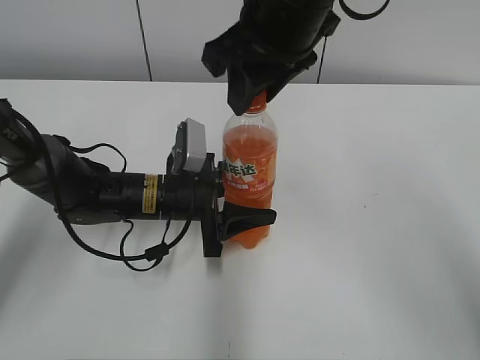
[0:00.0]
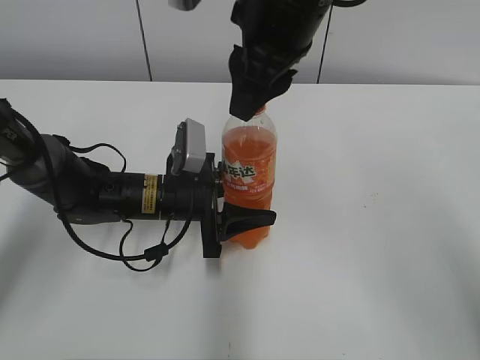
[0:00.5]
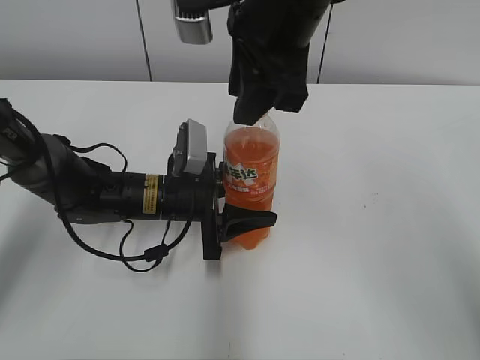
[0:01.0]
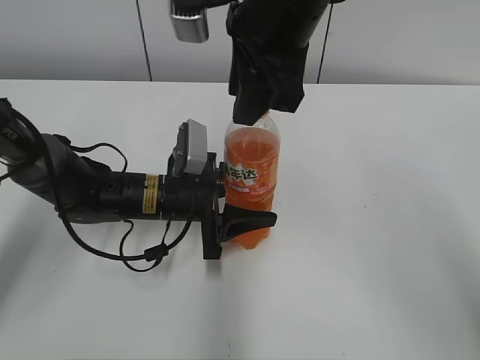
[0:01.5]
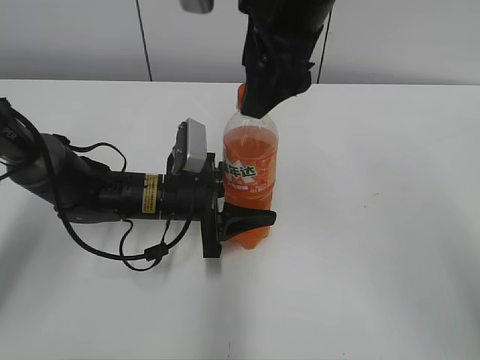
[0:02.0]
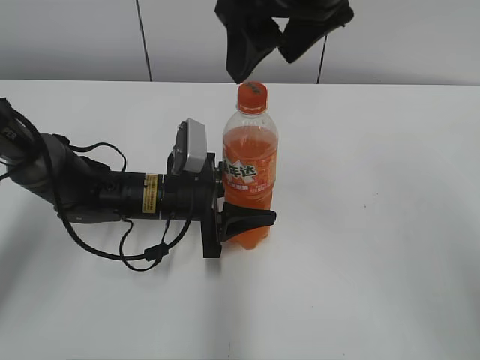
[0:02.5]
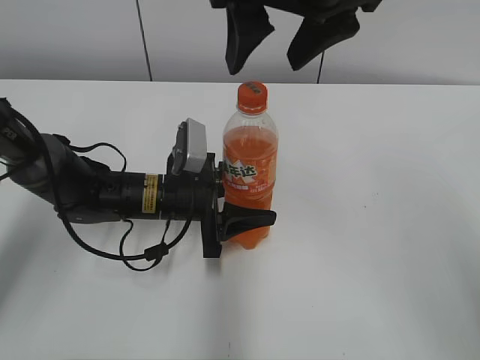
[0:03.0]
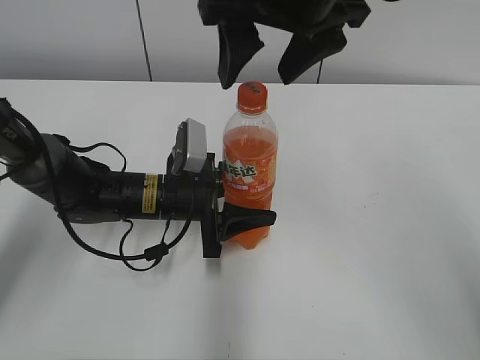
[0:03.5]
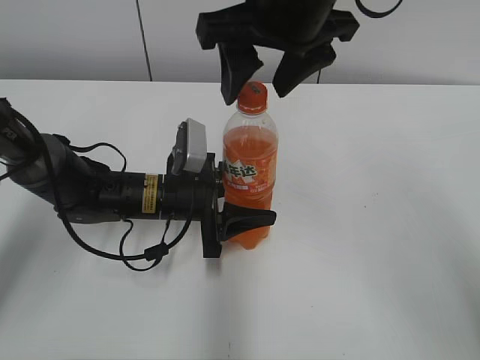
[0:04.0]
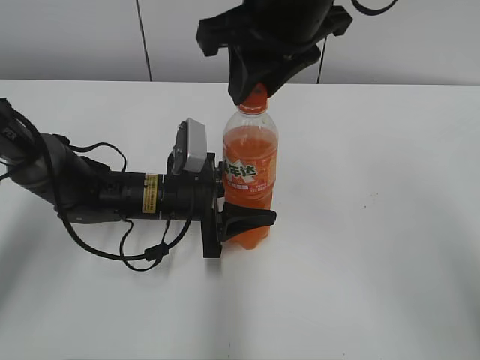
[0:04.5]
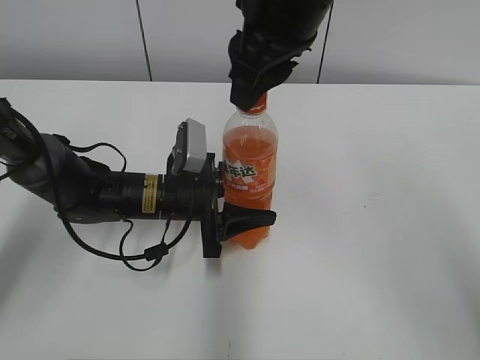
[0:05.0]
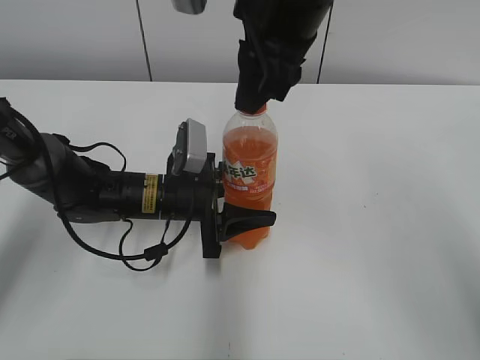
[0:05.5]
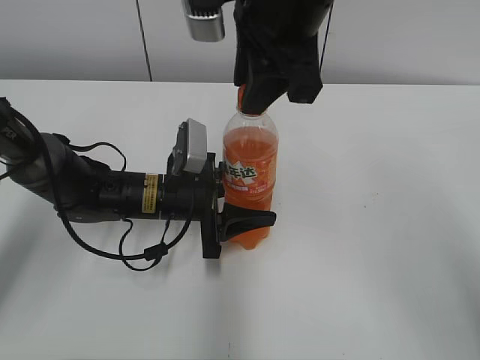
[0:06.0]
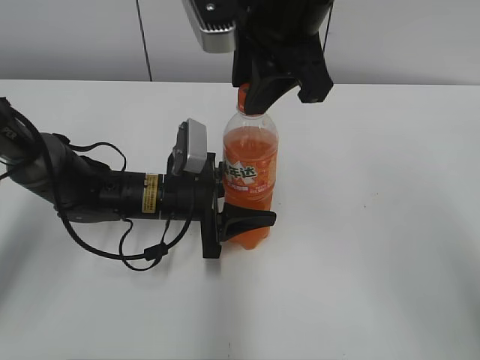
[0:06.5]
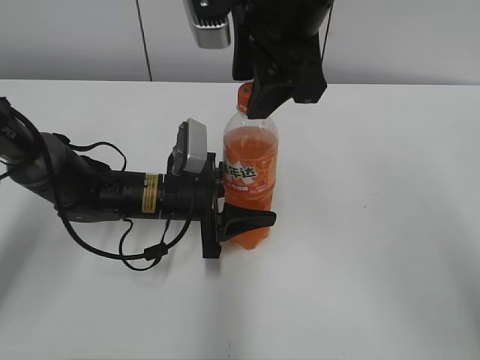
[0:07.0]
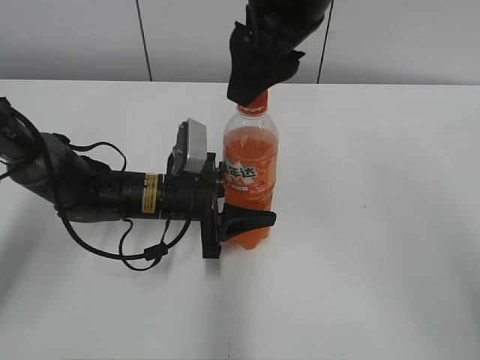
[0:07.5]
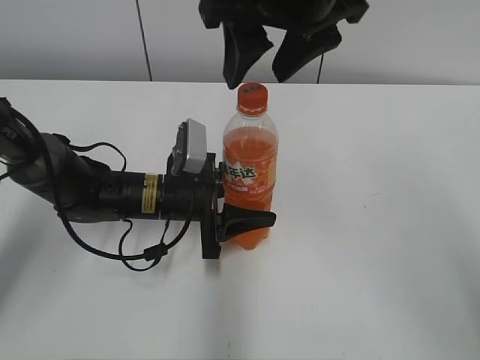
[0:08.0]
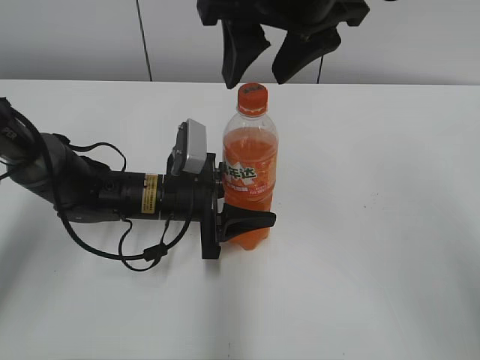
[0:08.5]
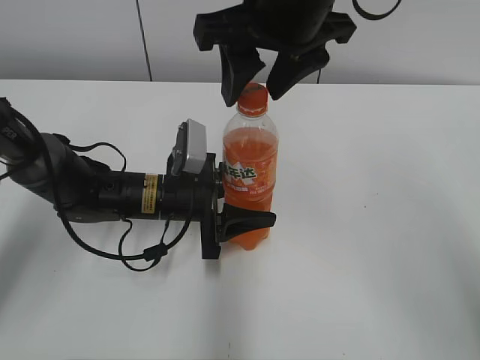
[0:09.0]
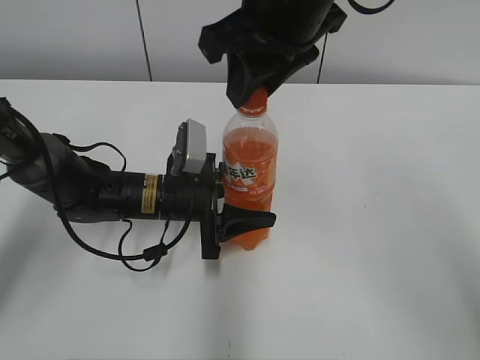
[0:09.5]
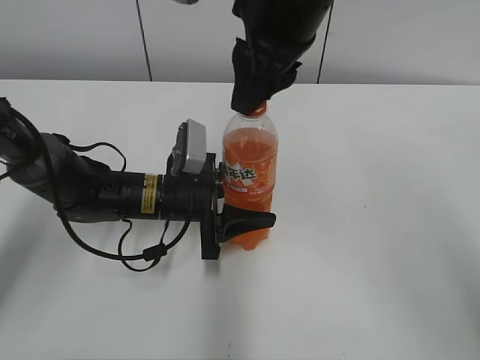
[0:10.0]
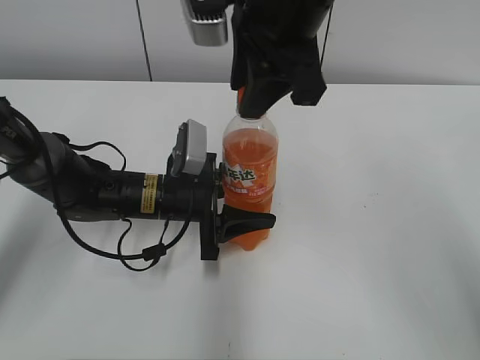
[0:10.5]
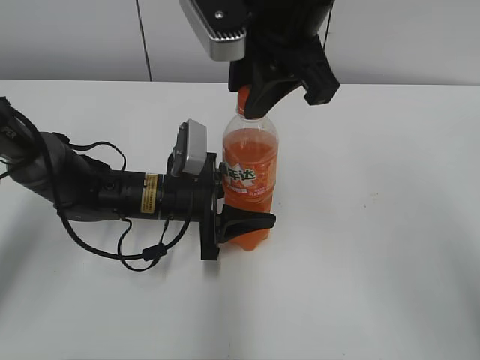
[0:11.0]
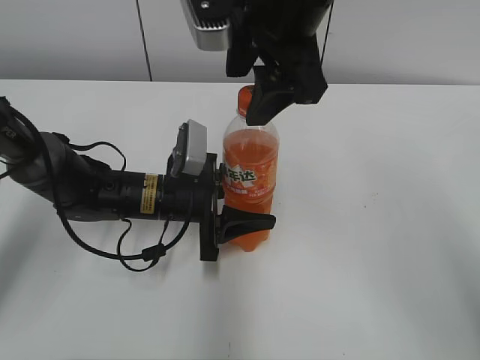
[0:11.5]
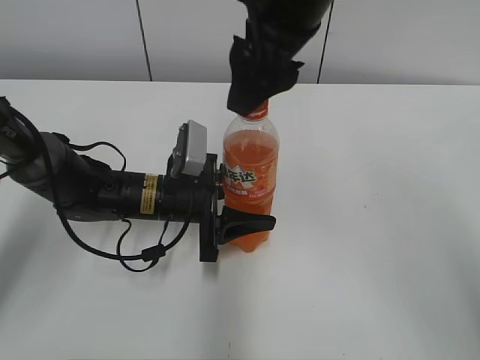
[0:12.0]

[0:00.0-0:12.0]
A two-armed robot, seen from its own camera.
0:00.0 to 0:02.0: The right gripper opens its fingers.
0:04.0 to 0:06.0: The right gripper closes its fingers.
0:06.0 to 0:08.0: The right gripper opens up.
0:08.0 to 0:10.0: The right gripper closes its fingers.
0:10.0 to 0:12.0: The right gripper opens its fingers.

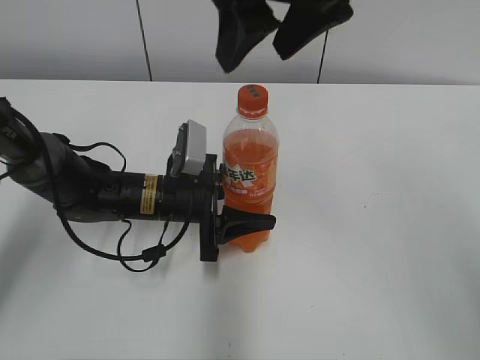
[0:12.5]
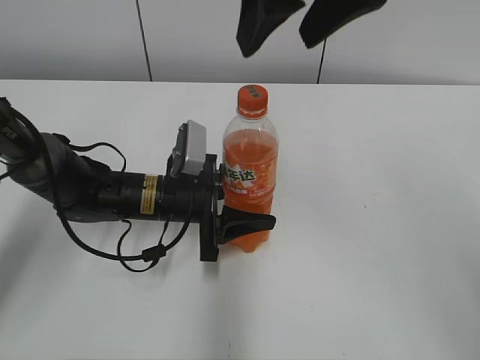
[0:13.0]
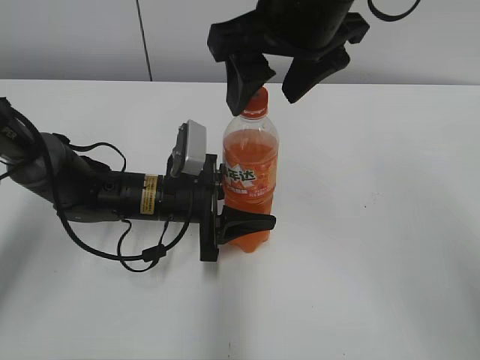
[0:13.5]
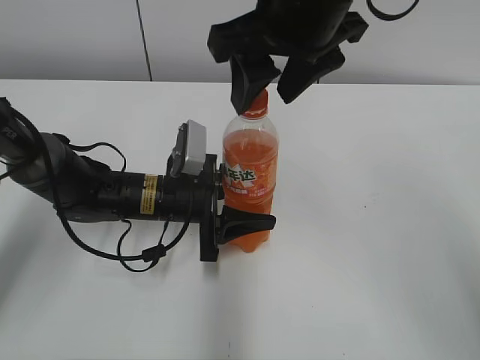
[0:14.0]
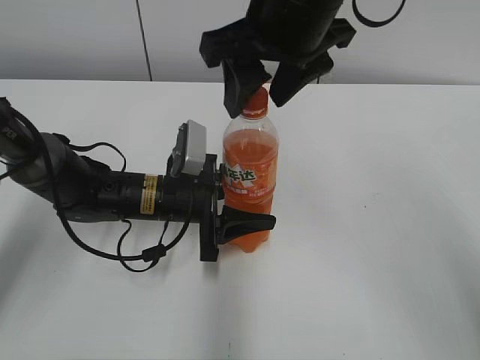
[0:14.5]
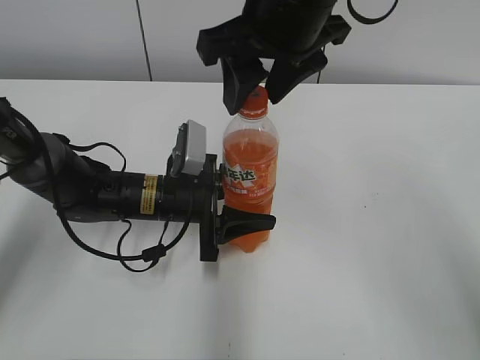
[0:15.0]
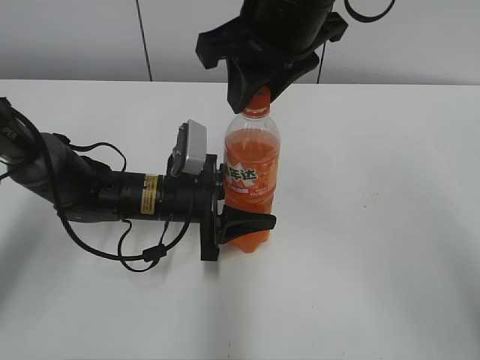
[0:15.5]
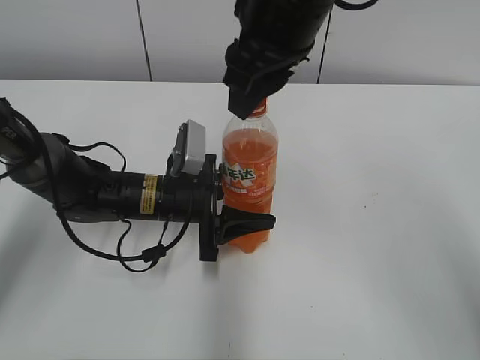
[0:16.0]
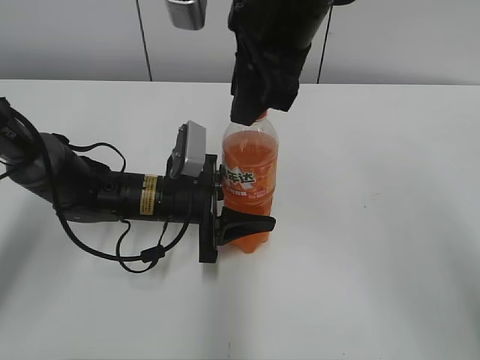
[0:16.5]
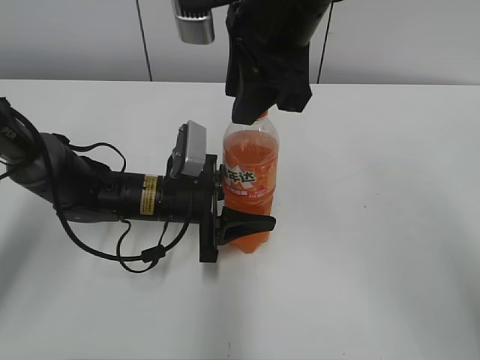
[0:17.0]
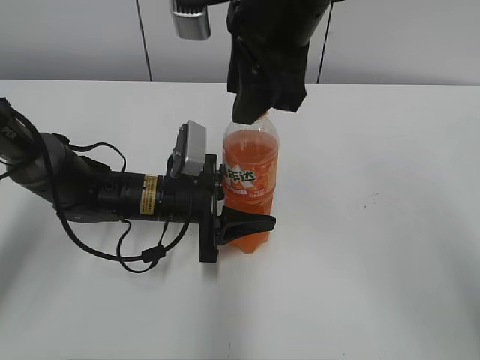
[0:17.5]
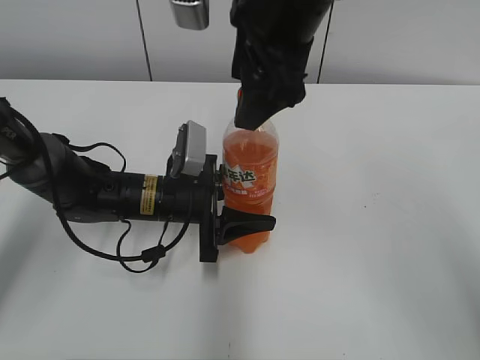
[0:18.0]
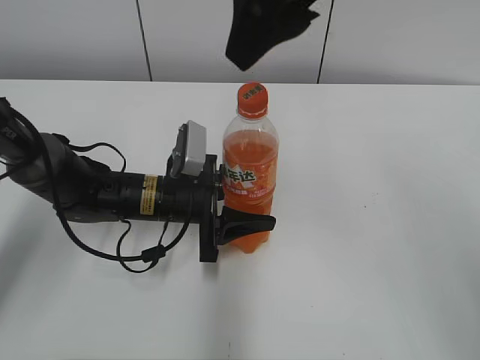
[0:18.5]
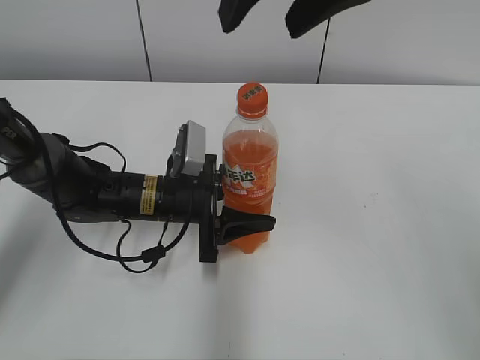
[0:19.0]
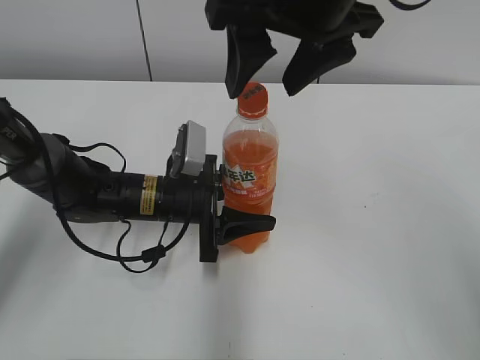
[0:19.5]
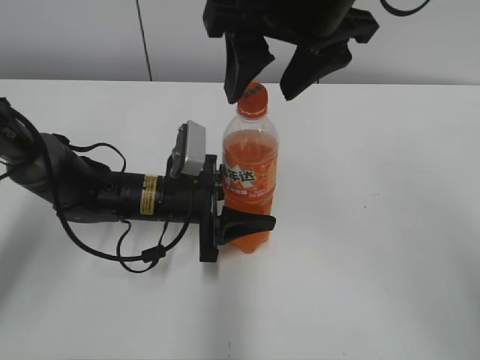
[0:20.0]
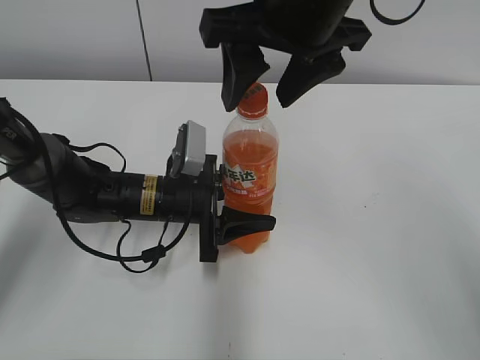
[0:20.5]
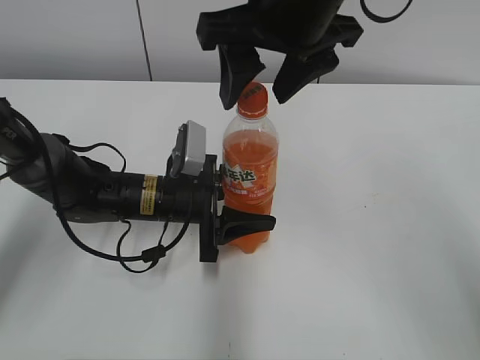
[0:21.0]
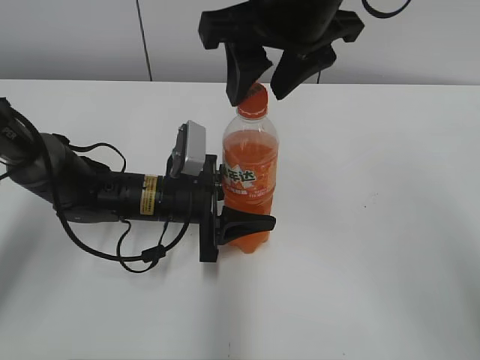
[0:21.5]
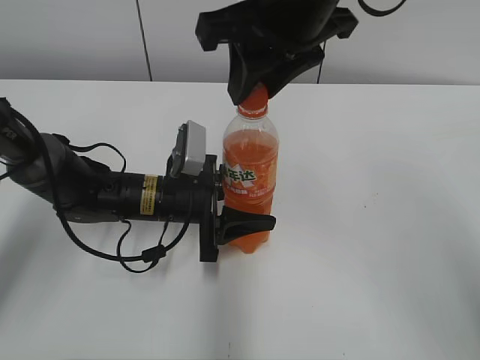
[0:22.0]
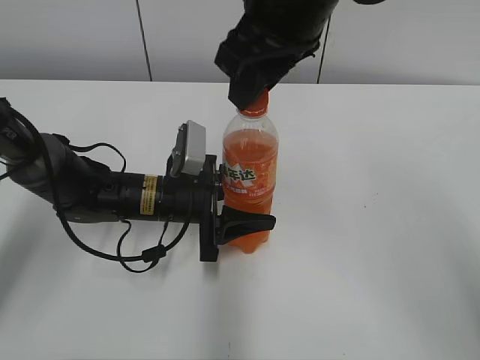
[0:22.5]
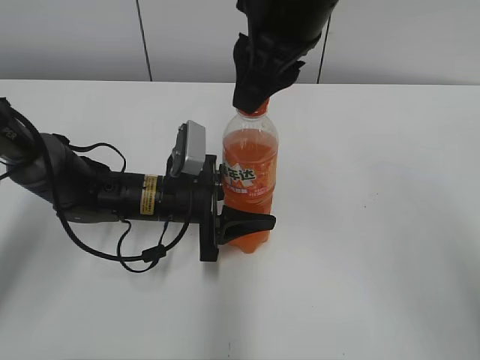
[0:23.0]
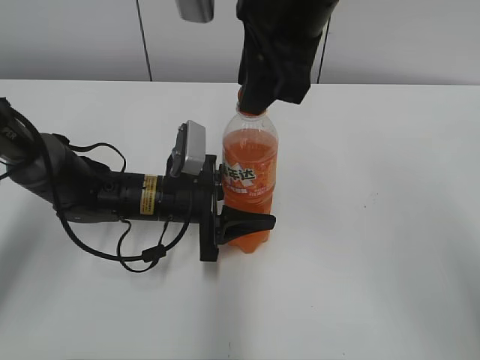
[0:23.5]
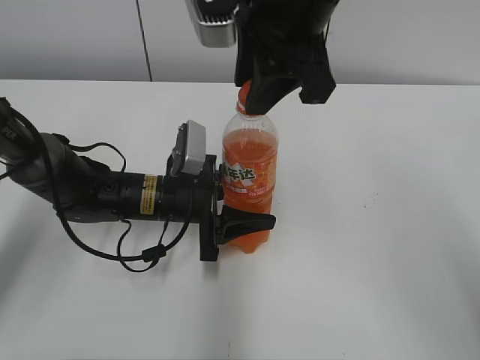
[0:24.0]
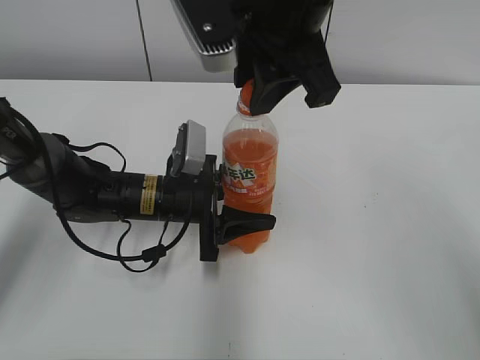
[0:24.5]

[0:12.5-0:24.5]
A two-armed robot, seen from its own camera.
0:12.5 to 0:14.5: The right gripper changes place by roughly 5 cm.
0:14.5 to 0:16.5: The right gripper closes its fingers.
0:16.5 to 0:18.5: The right gripper goes roughly 5 cm upward, and opens.
0:18.5 to 0:20.5: The right gripper is displaced downward by some 5 cm.
0:20.5 to 0:22.5: The right gripper closes up.

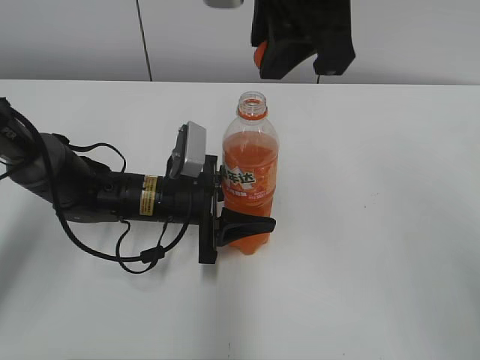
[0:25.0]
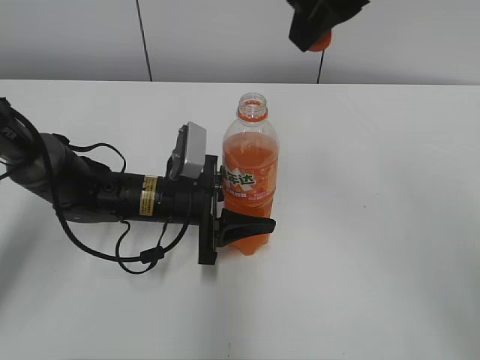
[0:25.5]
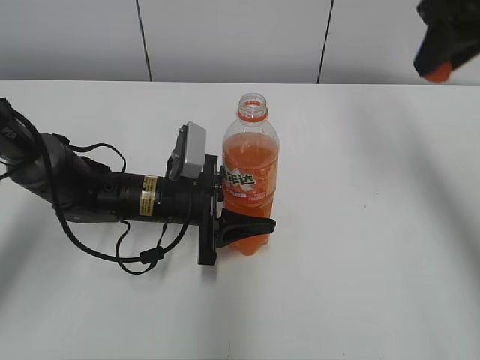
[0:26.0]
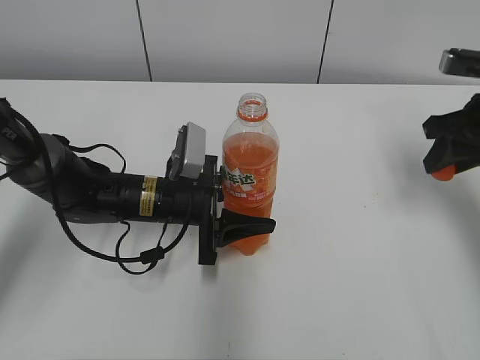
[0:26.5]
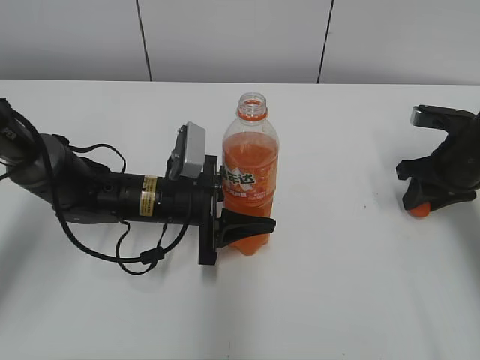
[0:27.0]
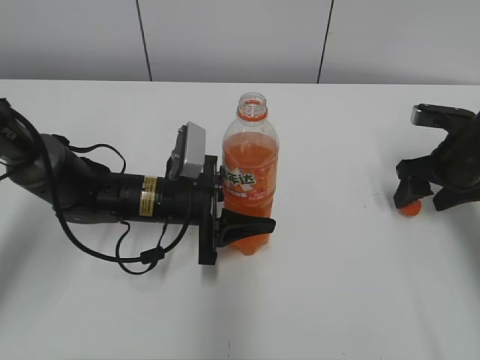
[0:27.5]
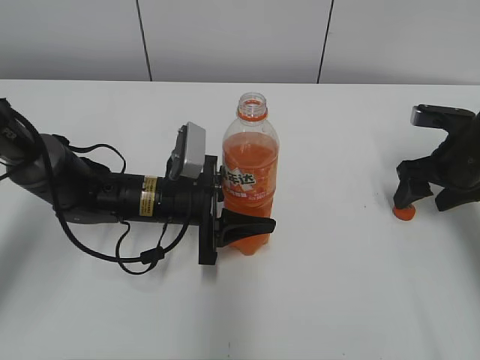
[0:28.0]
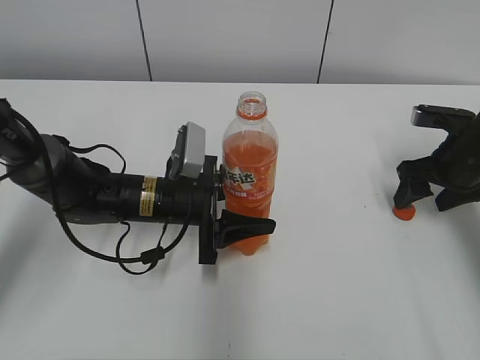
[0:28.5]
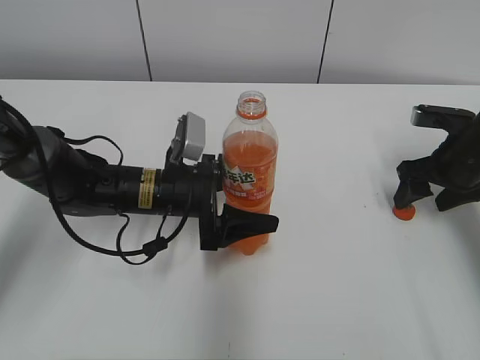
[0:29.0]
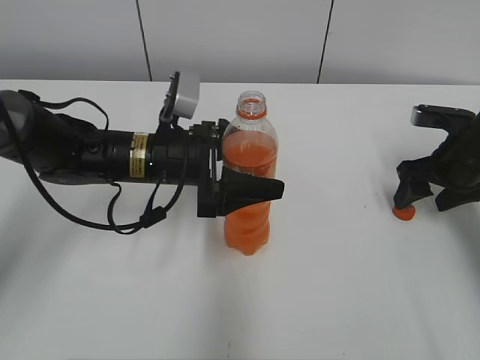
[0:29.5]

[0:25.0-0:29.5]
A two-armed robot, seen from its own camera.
Step, 0:25.0 to 0:27.0: Place the bottle cap on the right.
0:25.0 to 0:27.0: The right gripper is displaced downward and to the right by about 35 cm.
0:27.0 to 0:29.5: The right gripper opens up; the left gripper is displaced upward by some 5 cm, and opens.
